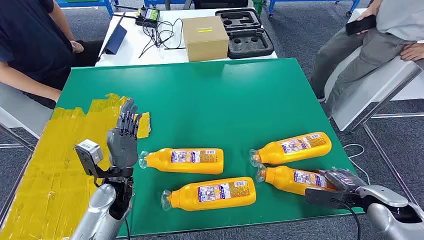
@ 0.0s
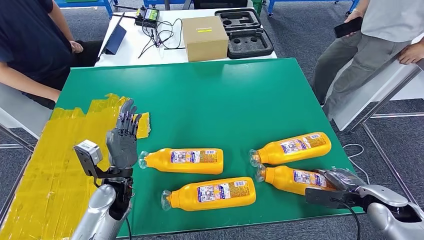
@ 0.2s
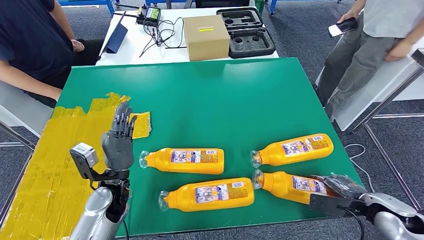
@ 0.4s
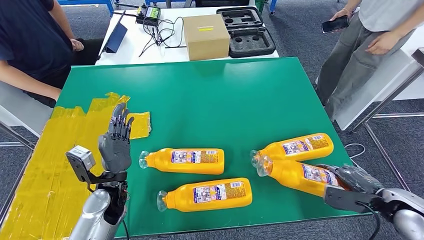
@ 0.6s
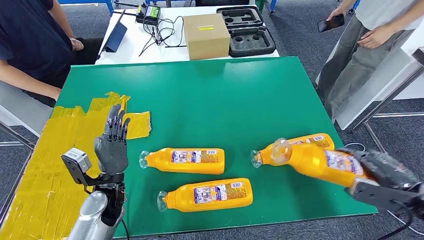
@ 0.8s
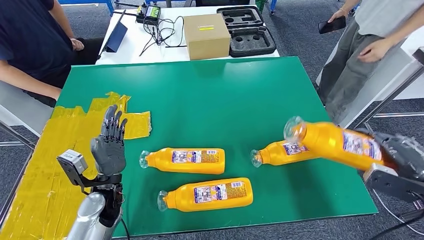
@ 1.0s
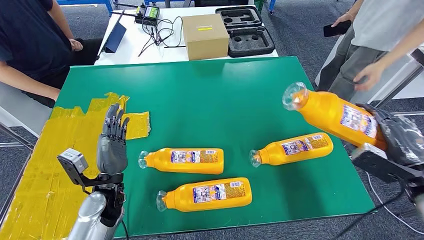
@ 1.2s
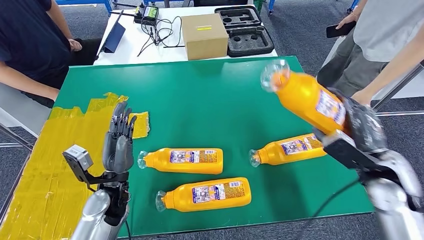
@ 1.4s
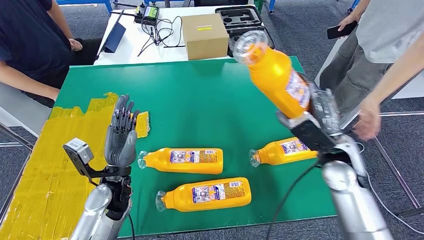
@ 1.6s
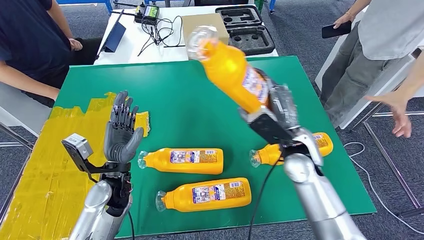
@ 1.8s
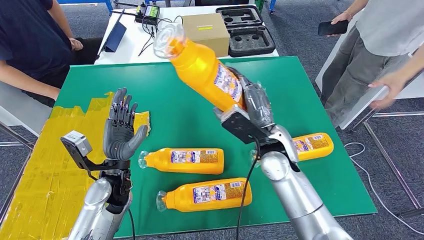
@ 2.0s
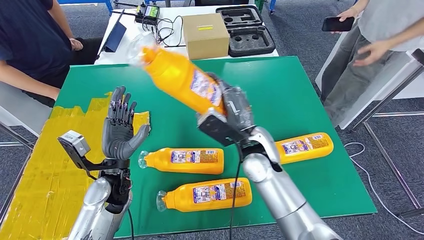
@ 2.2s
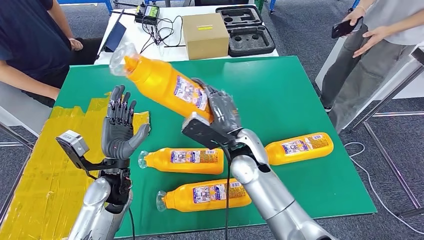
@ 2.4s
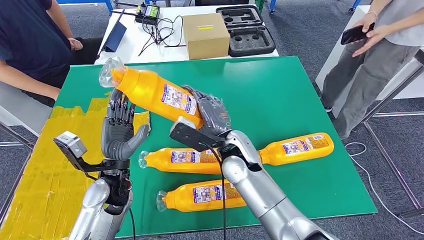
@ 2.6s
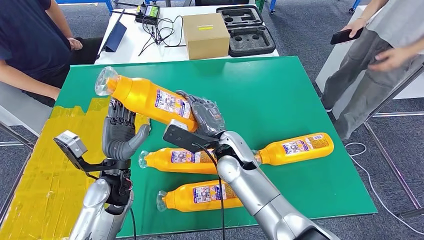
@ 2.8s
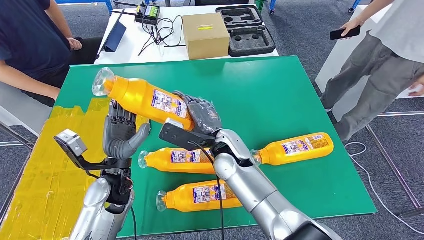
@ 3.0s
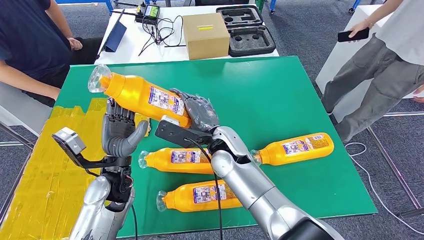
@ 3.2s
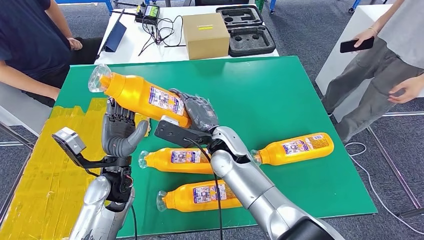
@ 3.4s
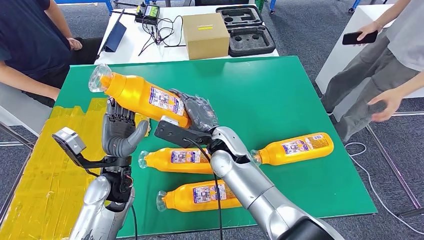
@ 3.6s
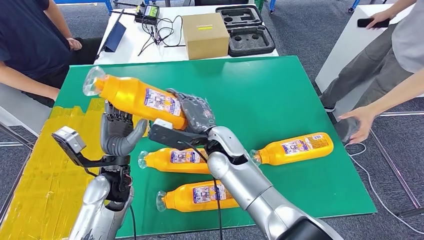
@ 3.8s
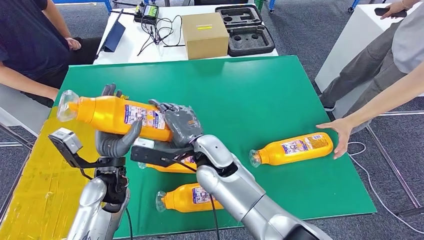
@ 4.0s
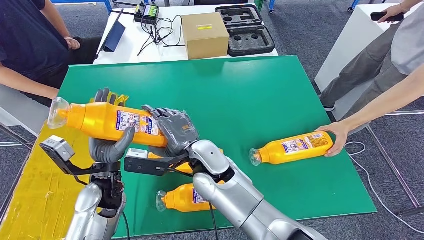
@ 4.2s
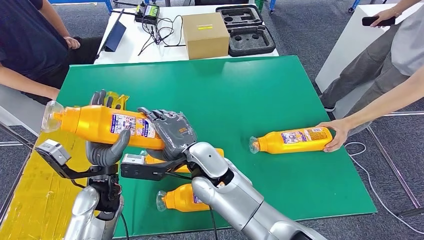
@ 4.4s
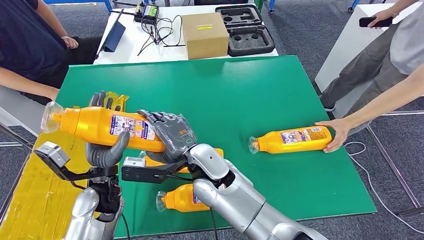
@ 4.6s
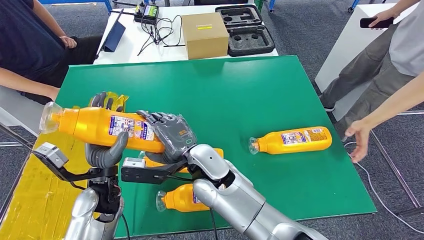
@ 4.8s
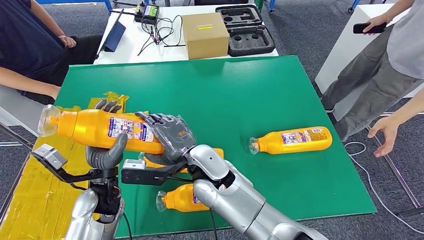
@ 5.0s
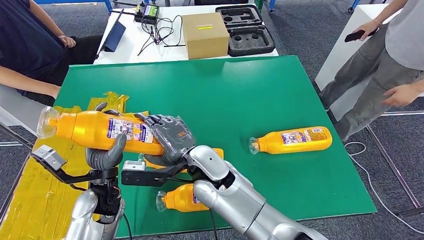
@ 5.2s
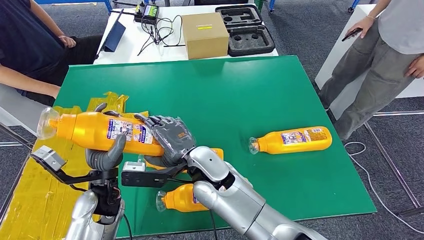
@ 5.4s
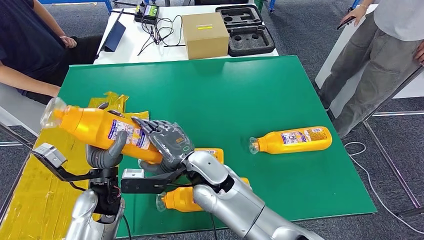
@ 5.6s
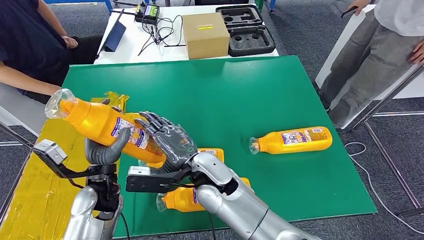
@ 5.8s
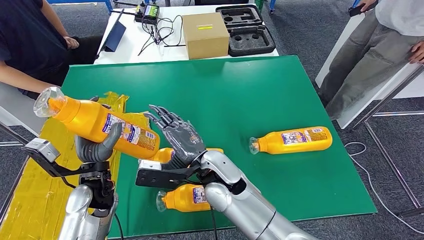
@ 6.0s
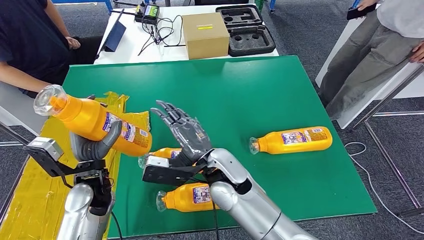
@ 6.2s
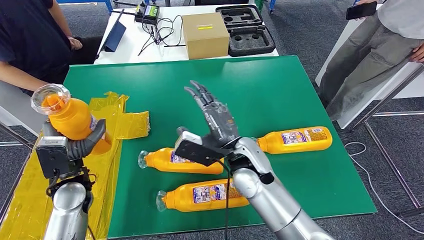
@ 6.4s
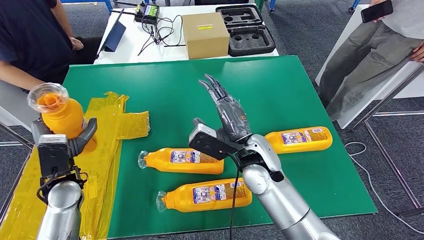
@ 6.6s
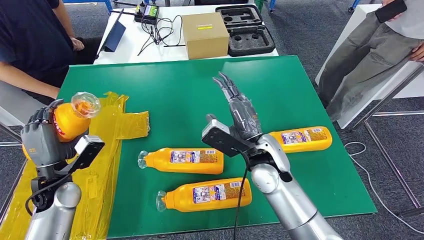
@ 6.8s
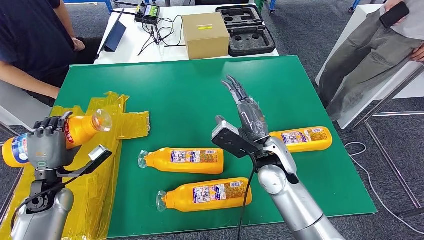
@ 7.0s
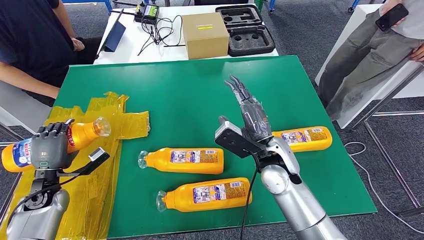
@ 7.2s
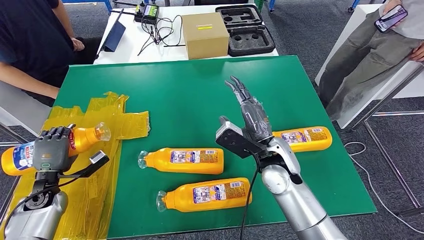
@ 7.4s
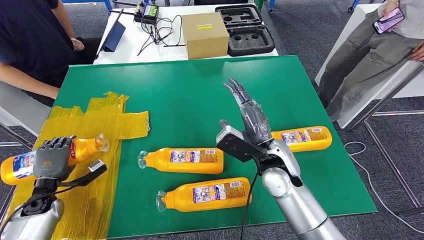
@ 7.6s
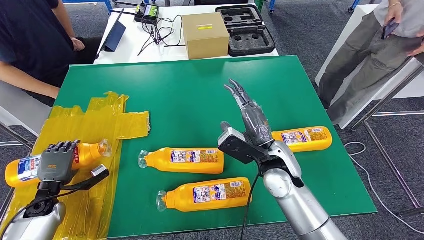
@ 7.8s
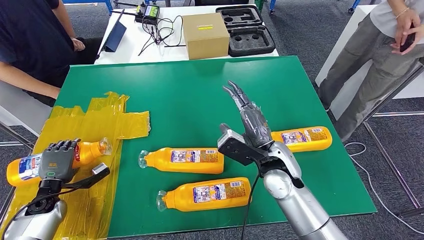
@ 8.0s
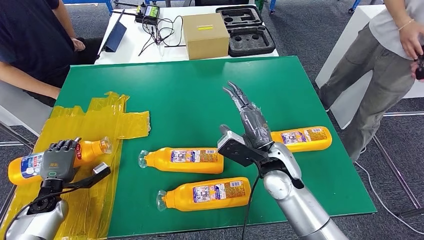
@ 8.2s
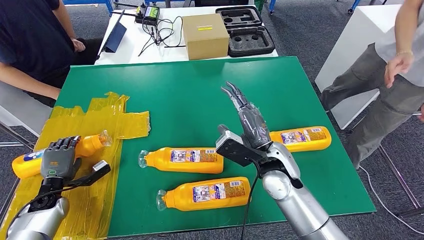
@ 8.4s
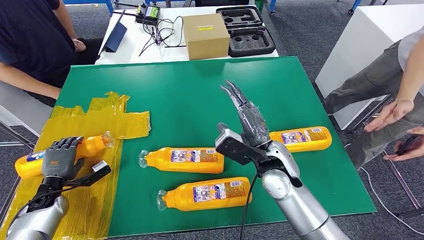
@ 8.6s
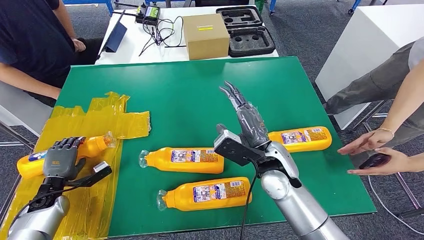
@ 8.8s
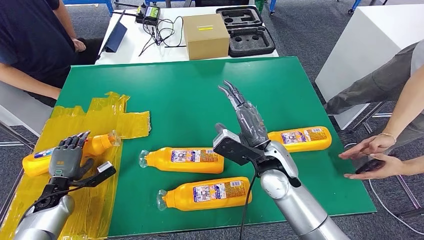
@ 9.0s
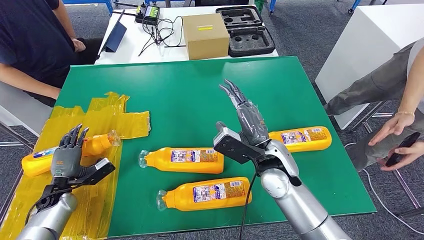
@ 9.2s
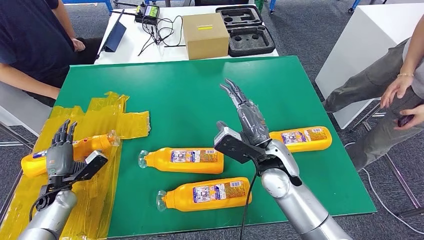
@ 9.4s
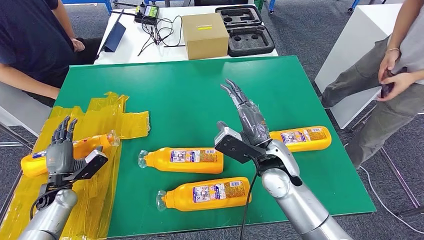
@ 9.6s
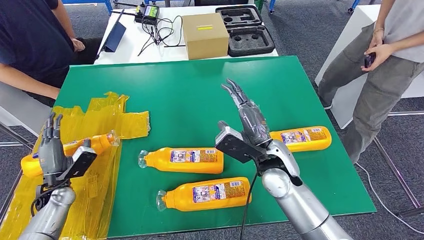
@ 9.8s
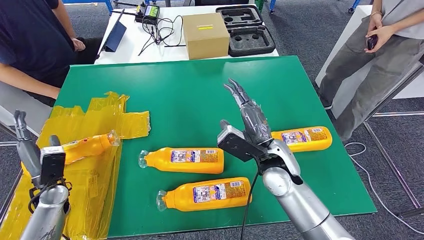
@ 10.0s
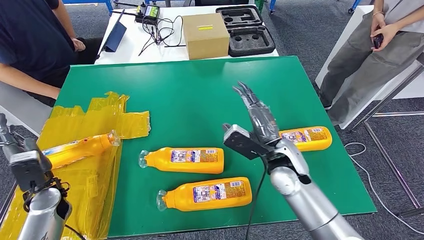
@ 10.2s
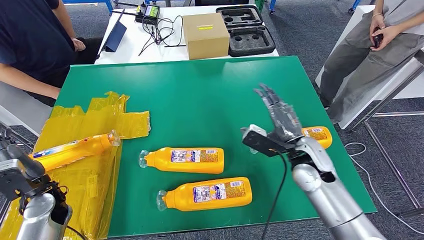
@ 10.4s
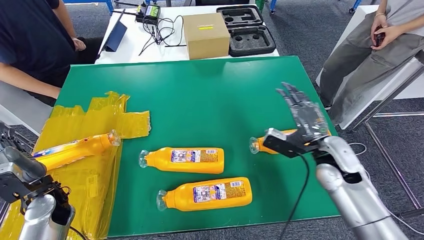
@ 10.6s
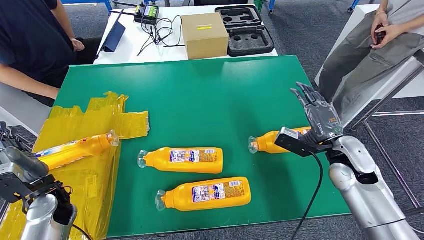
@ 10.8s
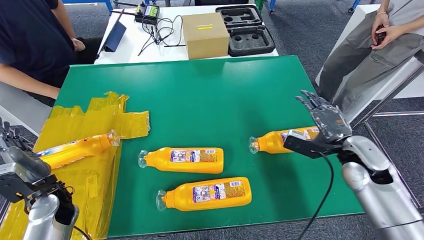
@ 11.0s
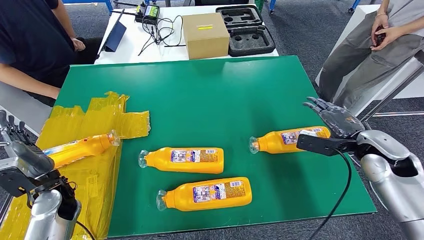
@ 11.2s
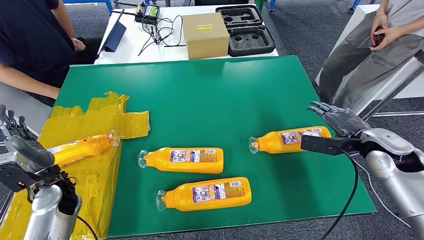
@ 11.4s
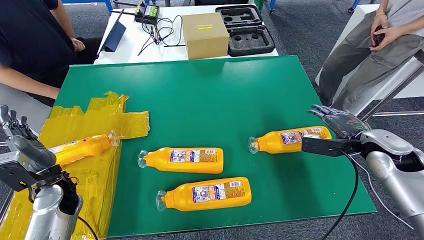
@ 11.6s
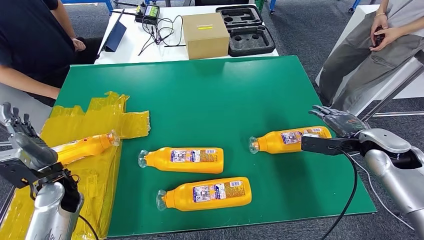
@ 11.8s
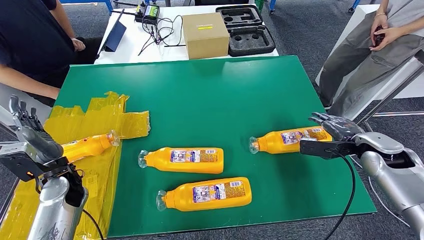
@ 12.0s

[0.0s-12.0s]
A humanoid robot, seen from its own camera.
Step, 0.0s to 2.6s: Take the fast-moving consumer goods bottle from the table.
Step, 2.8s to 9.2s: Flip the fast-moving consumer goods bottle to the front side.

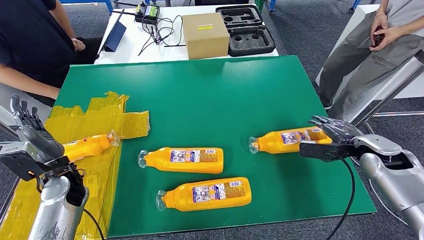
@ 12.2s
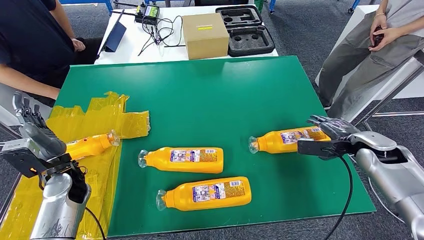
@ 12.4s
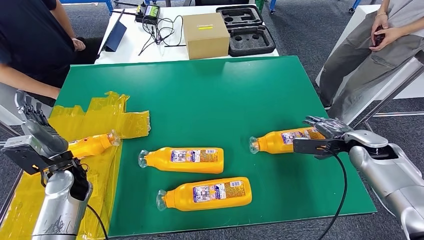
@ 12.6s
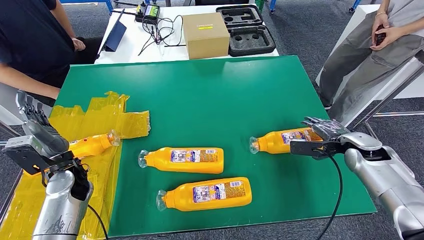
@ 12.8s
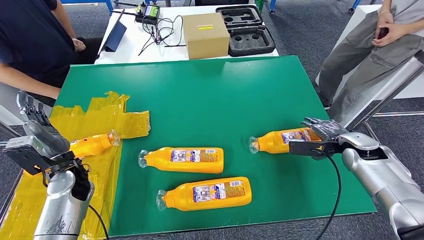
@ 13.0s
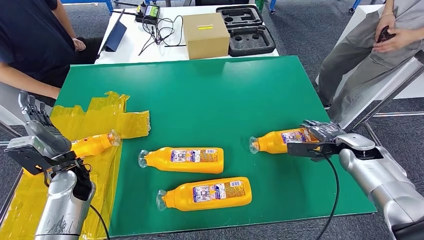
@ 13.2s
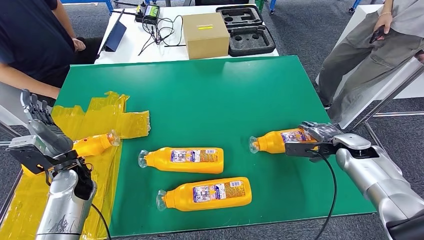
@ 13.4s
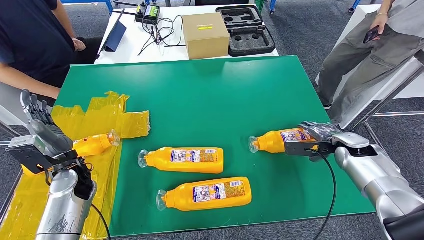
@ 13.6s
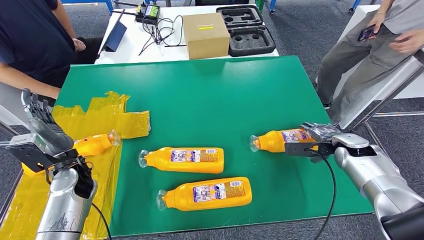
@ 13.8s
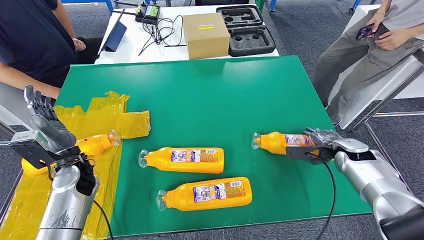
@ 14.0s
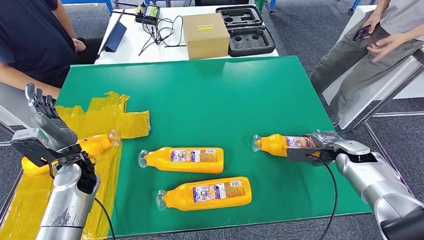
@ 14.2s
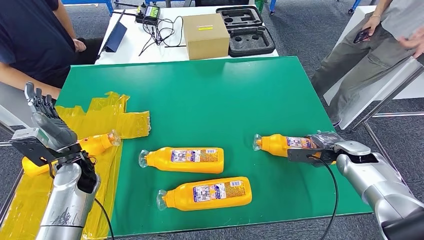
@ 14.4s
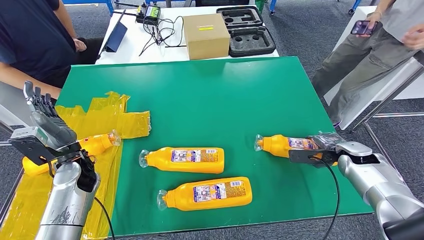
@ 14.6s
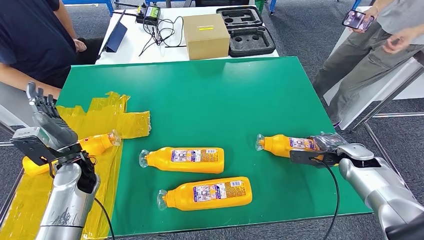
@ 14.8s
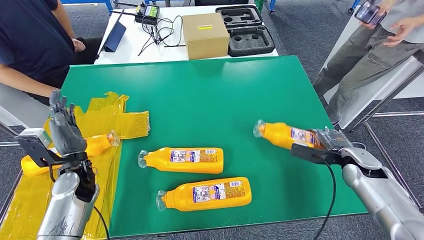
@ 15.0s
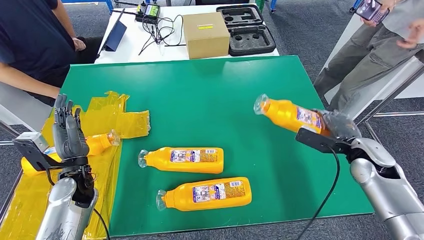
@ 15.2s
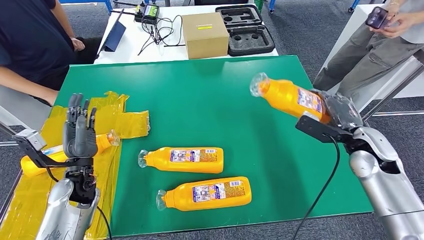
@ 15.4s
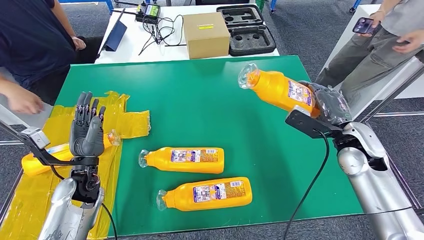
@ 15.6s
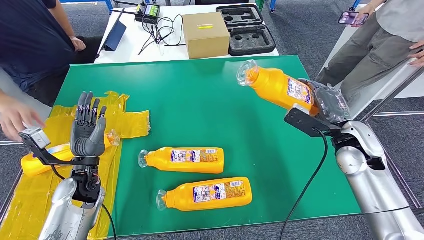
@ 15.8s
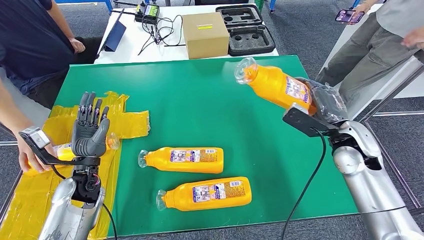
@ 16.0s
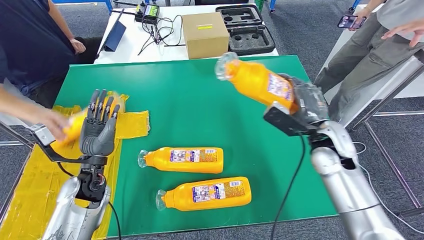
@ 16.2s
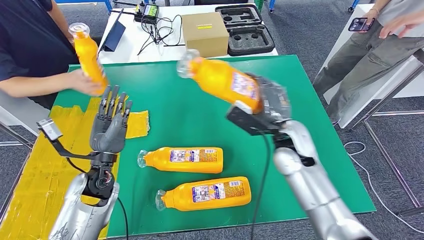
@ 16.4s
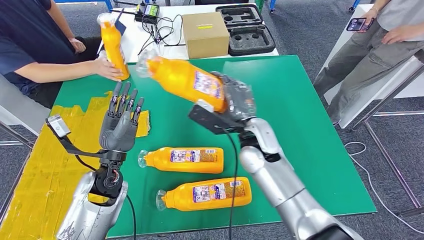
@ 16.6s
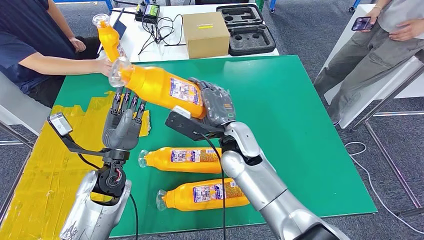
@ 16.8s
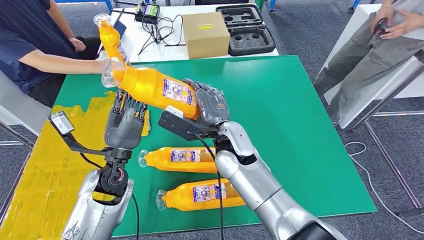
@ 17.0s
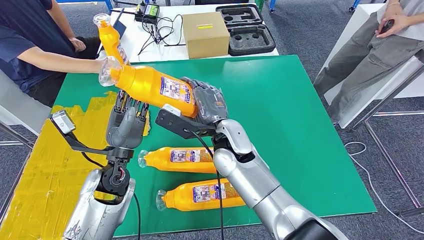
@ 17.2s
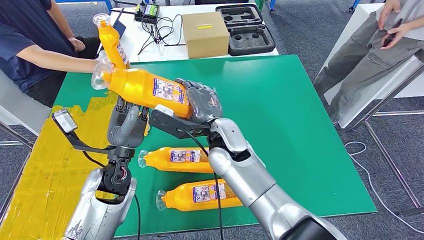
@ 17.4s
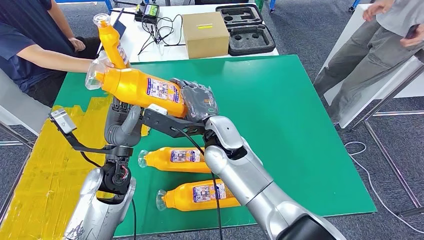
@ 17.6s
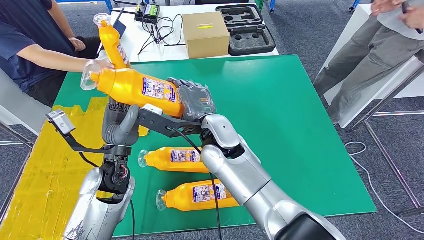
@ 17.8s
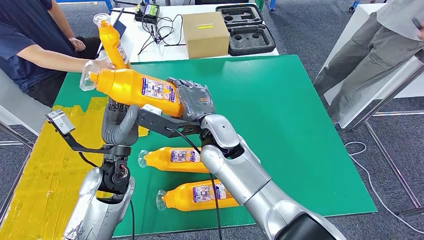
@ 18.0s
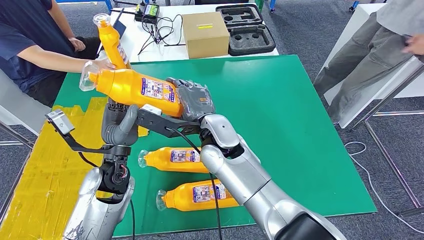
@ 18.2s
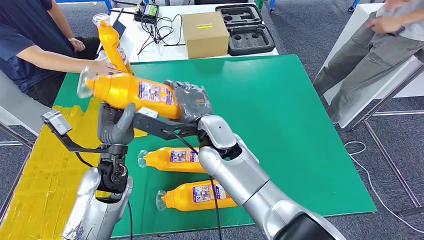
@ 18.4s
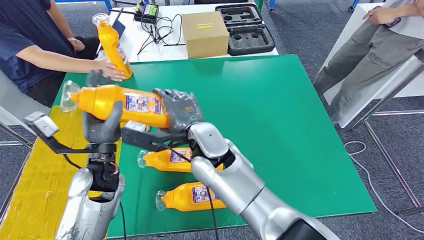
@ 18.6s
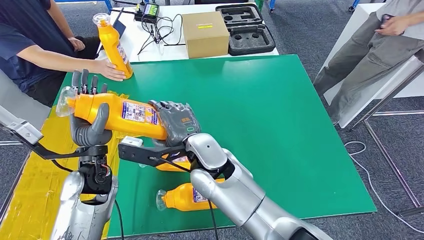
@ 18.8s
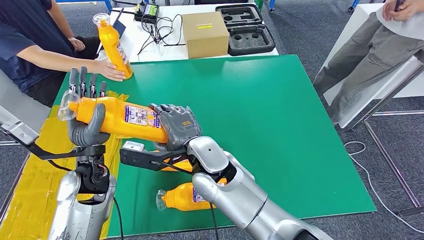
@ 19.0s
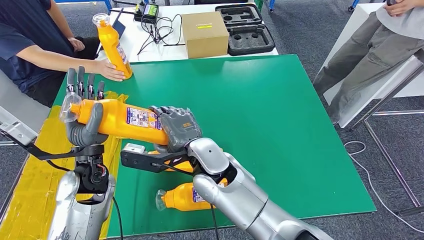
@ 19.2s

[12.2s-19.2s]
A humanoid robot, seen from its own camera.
12.2s to 13.6s: The right hand shifts by about 5 cm.
13.6s to 15.0s: The right hand ends up about 5 cm from where it was.
